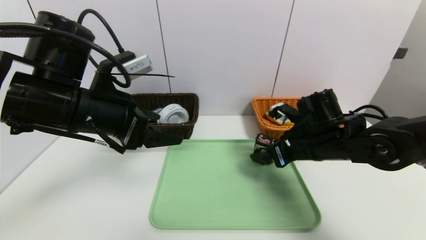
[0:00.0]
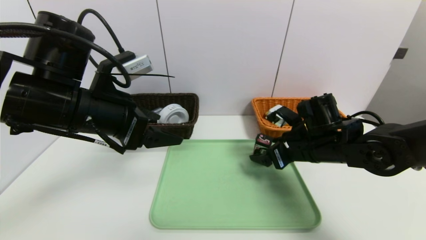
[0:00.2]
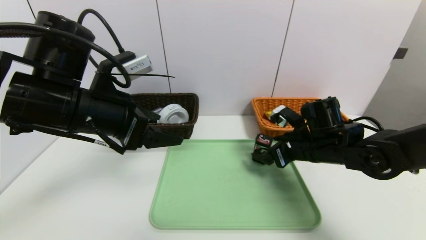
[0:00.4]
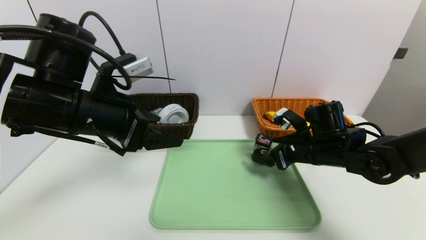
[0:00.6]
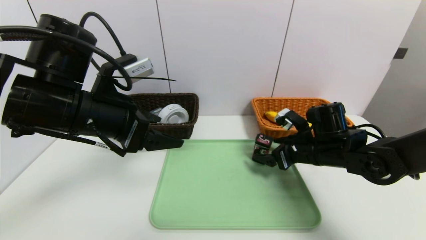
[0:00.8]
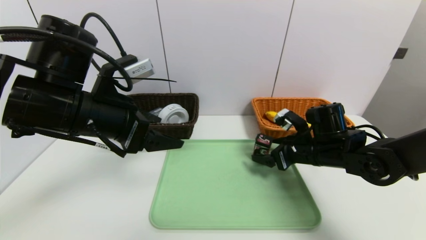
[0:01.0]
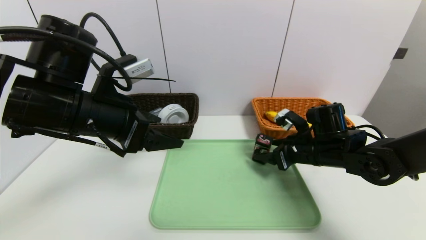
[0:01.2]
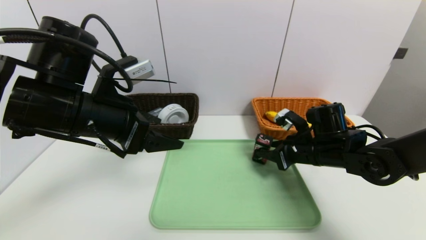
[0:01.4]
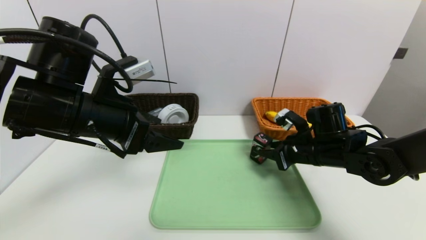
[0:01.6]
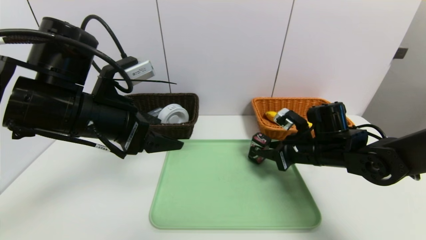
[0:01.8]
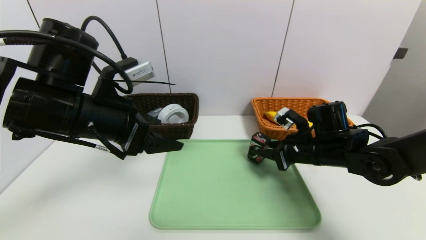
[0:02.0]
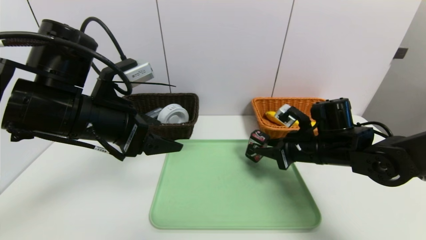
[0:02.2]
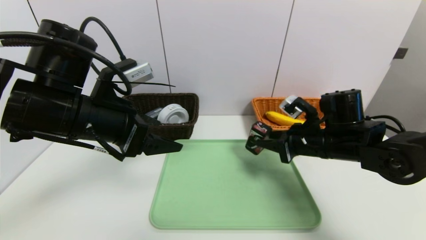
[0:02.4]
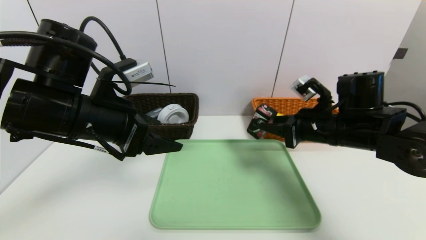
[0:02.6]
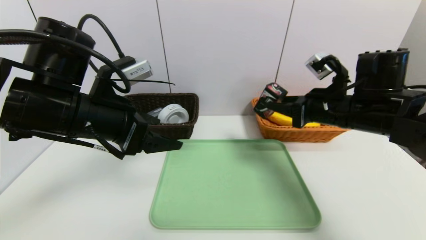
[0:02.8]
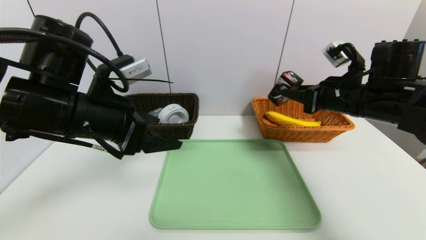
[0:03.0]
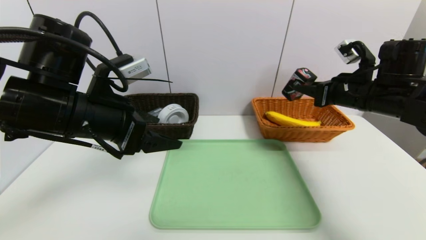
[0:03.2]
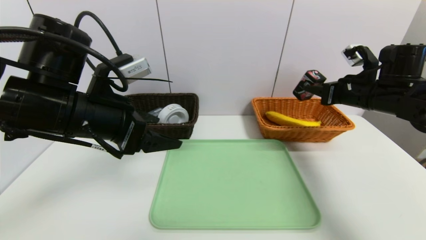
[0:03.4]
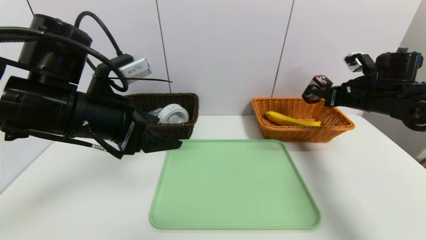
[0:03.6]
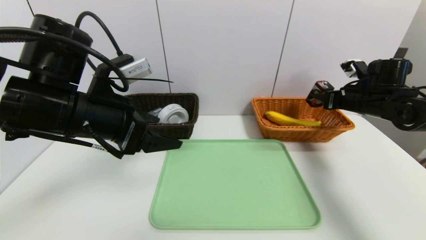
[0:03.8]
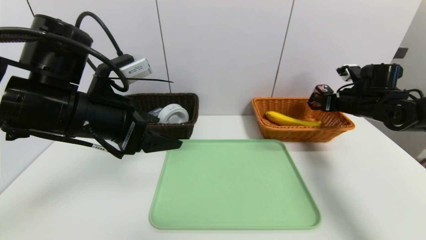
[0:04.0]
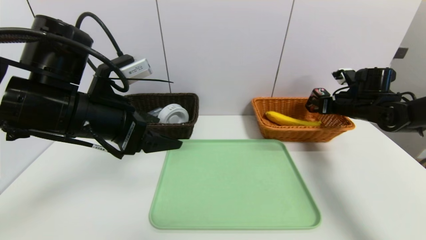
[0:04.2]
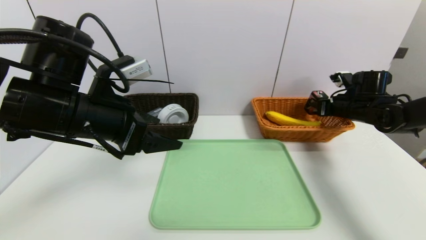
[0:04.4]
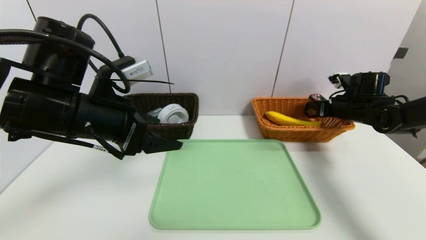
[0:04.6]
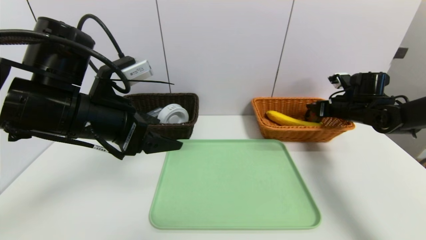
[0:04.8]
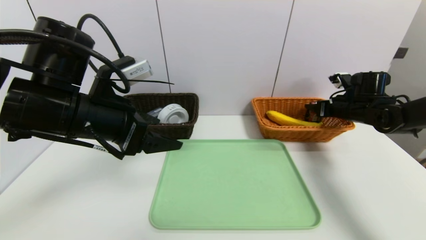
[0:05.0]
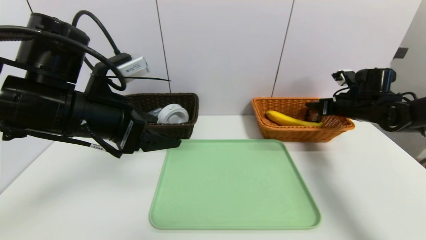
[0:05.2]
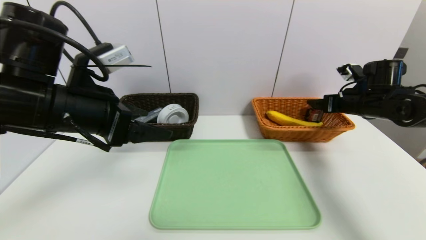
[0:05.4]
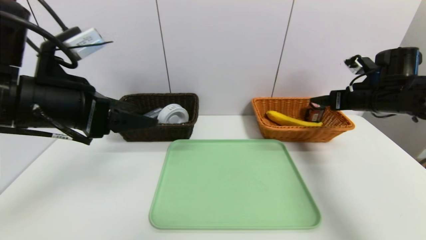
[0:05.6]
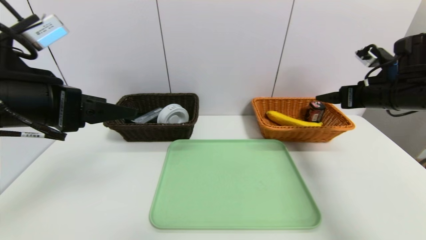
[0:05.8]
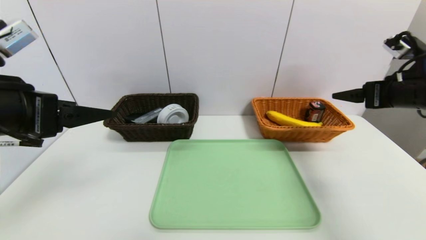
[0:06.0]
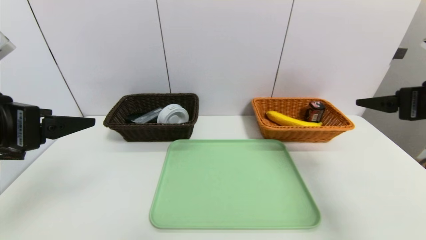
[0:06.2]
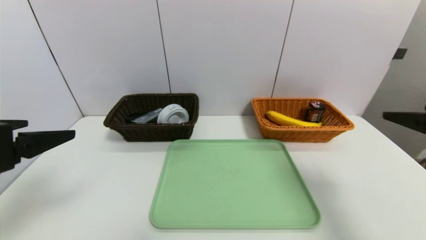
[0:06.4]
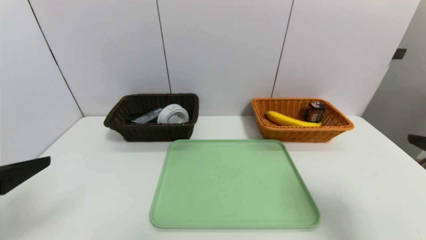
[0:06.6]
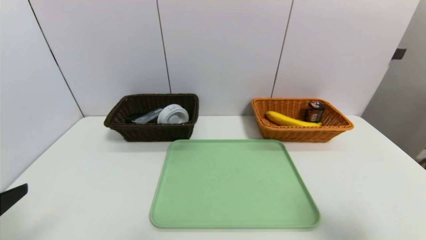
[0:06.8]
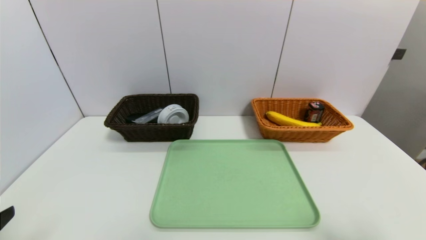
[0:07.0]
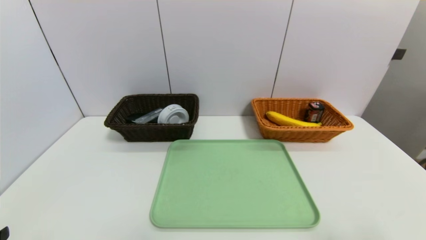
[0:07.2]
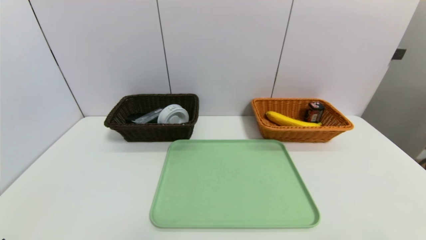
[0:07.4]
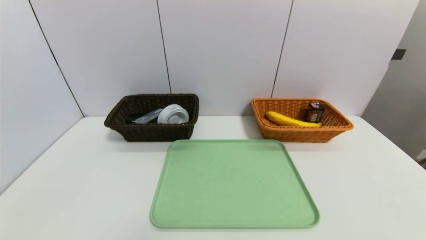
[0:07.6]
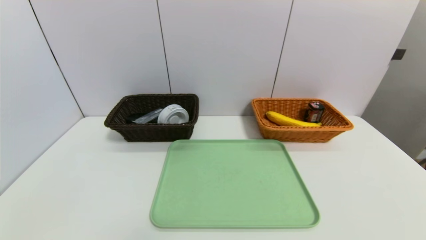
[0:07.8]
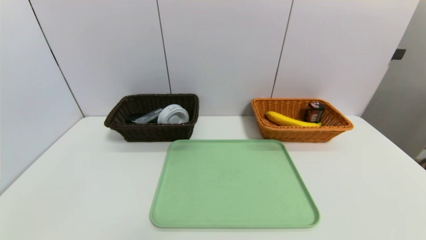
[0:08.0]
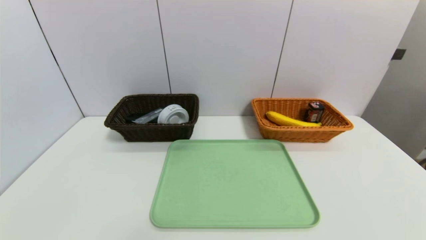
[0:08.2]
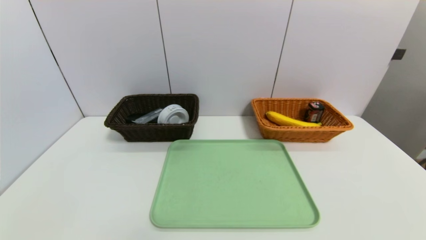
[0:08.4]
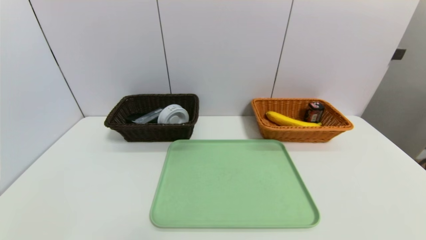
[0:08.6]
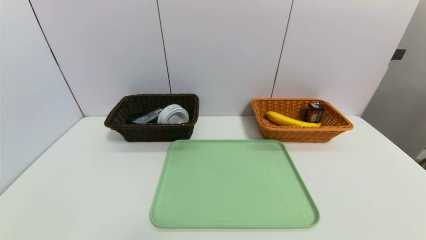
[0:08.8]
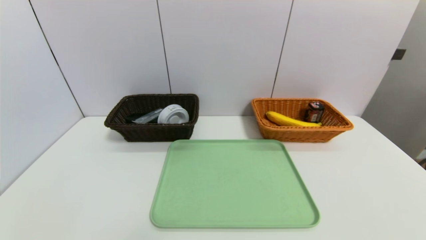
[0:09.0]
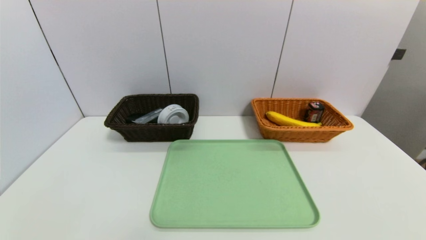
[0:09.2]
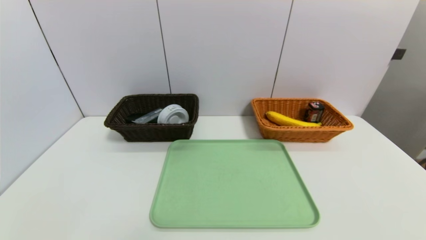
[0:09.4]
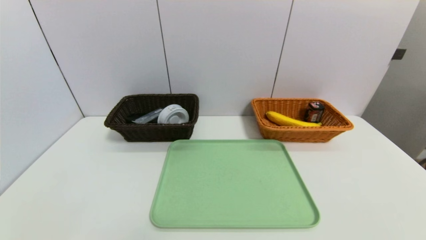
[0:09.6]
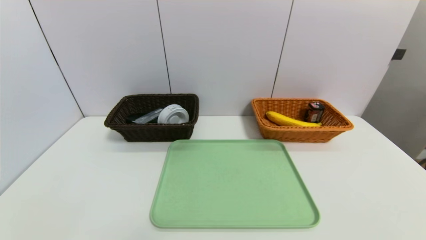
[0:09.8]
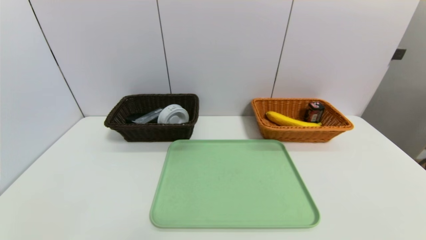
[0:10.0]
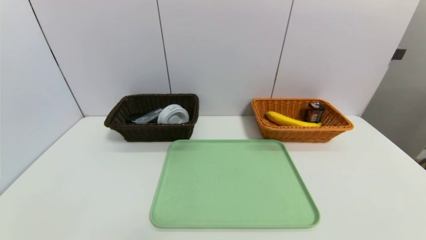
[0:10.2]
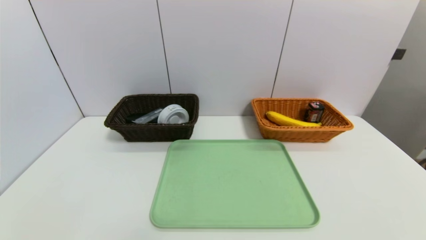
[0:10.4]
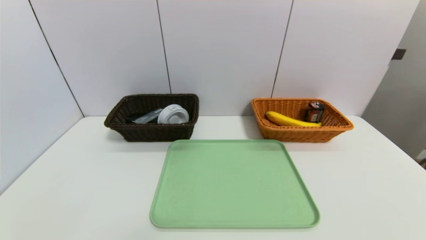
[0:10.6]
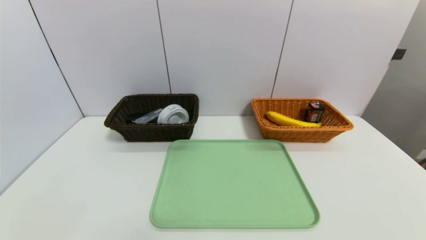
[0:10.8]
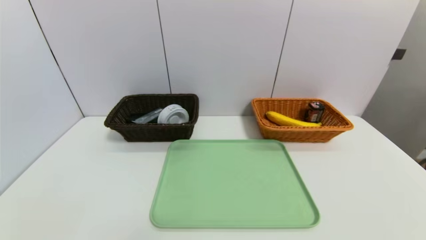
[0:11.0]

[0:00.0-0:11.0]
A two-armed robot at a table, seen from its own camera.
Task of the whole recording: place the food in the right basket with the right gripper, and place the non food items in the left basket with the left gripper.
Step, 0:00.0 to 0:05.2: Grasp the square chewing gum and put it in the right basket.
0:00.0 to 0:01.6: The right gripper closes its fingers.
0:01.6 to 0:03.2: The right gripper is displaced upward and to the right by some 15 cm.
0:03.2 to 0:04.8: The right gripper shifts roughly 15 cm forward, downward and to the right.
0:04.8 to 0:06.2: The right gripper goes approximately 25 cm backward and upward, and opens, while the left gripper is displaced to the left and backward by some 10 cm.
0:06.2 to 0:07.8: The two grippers go some 25 cm backward and downward.
